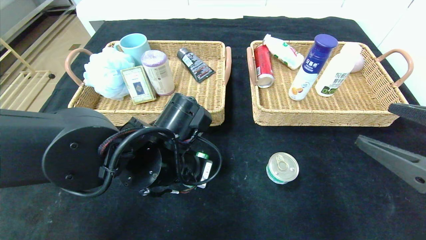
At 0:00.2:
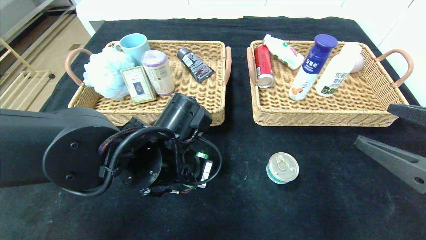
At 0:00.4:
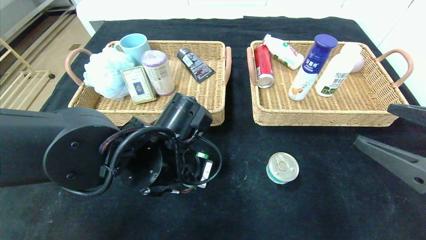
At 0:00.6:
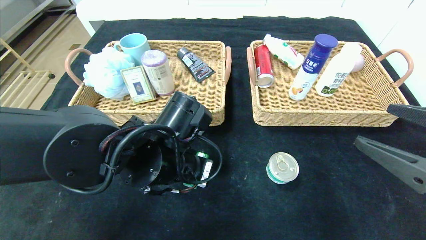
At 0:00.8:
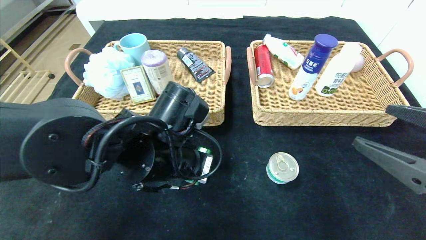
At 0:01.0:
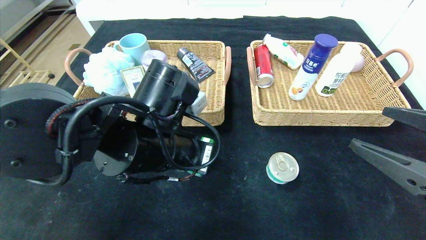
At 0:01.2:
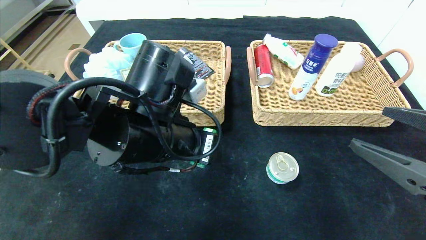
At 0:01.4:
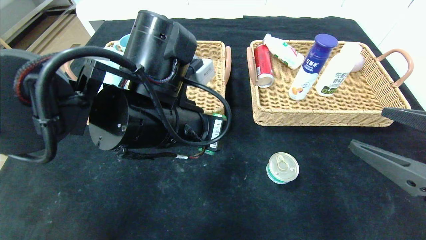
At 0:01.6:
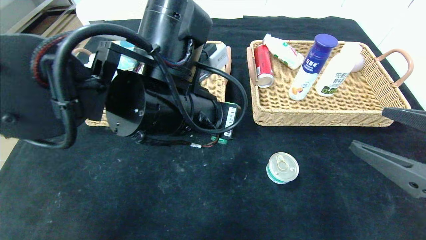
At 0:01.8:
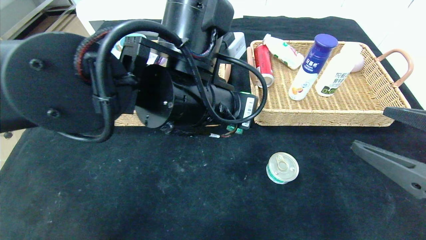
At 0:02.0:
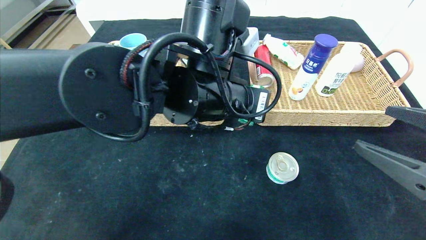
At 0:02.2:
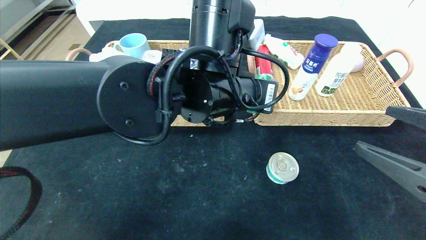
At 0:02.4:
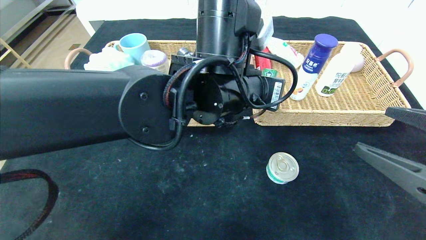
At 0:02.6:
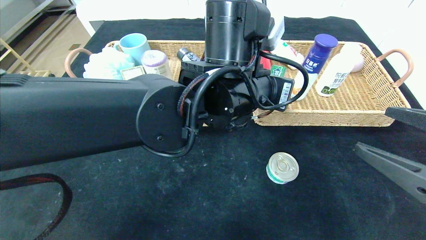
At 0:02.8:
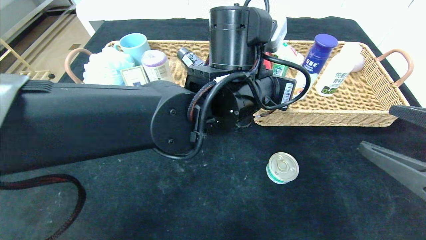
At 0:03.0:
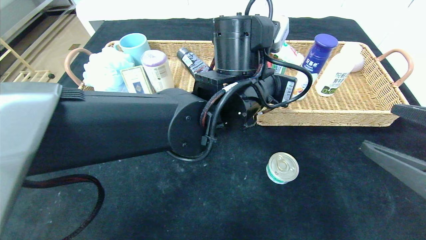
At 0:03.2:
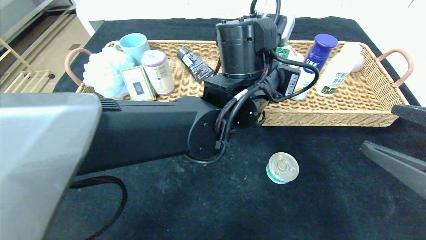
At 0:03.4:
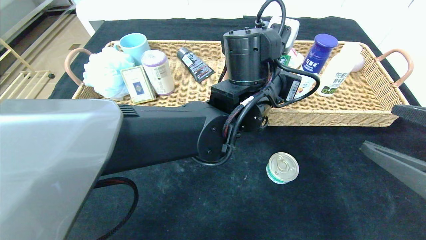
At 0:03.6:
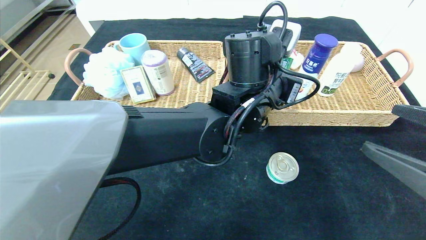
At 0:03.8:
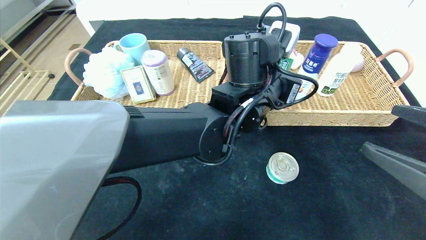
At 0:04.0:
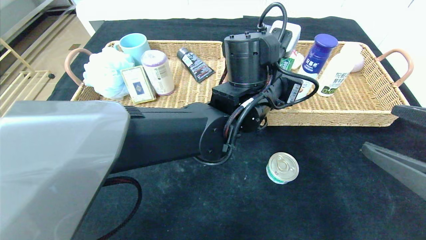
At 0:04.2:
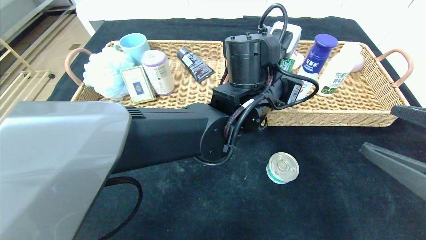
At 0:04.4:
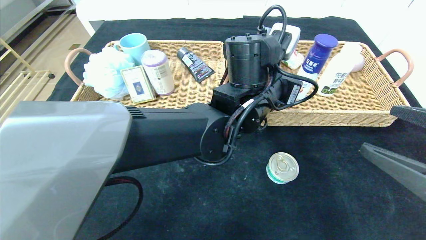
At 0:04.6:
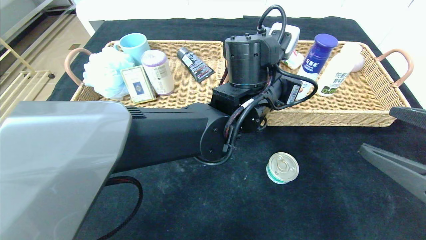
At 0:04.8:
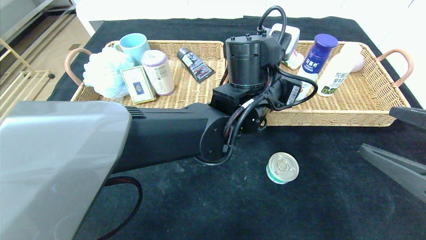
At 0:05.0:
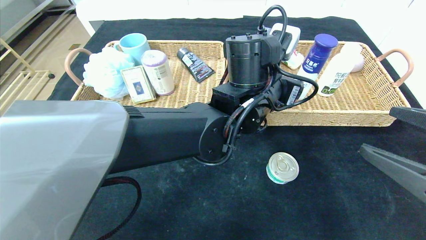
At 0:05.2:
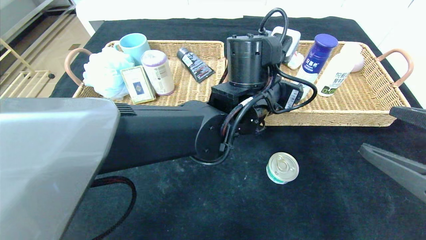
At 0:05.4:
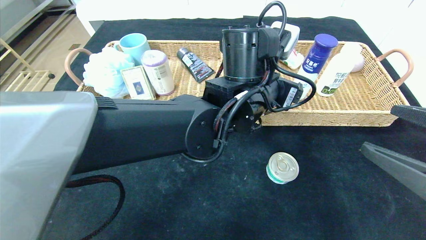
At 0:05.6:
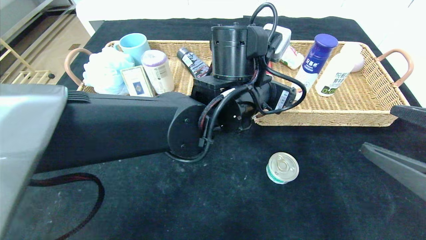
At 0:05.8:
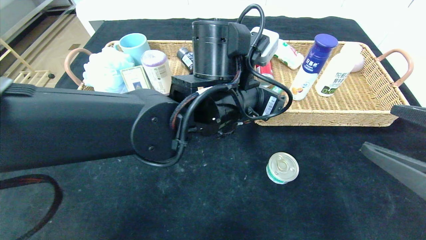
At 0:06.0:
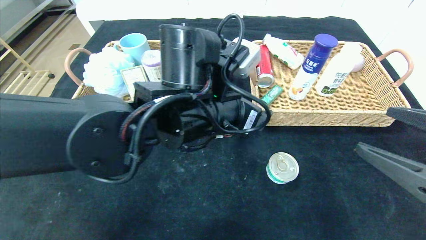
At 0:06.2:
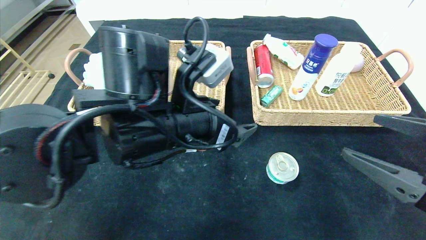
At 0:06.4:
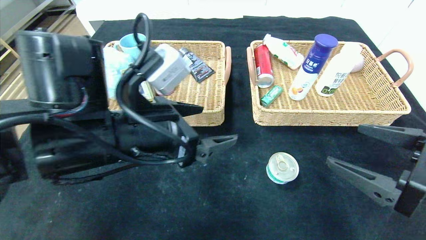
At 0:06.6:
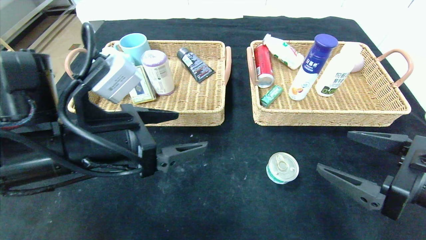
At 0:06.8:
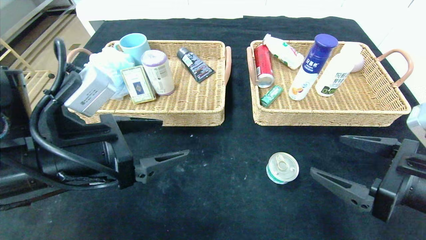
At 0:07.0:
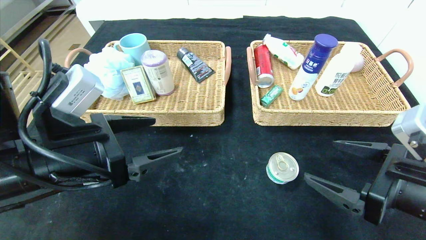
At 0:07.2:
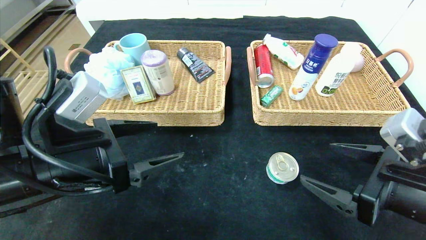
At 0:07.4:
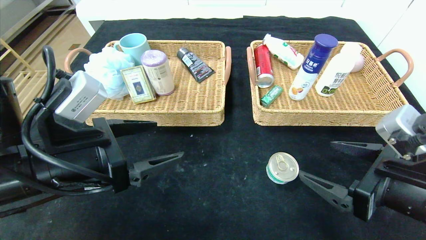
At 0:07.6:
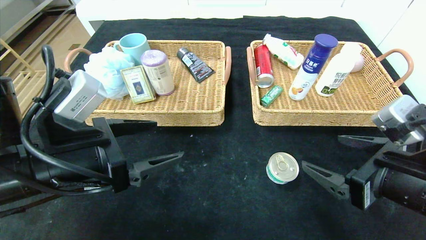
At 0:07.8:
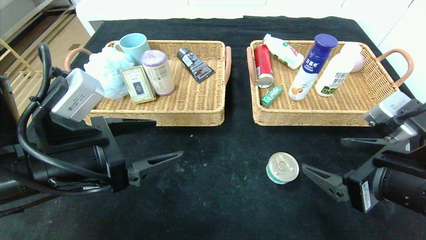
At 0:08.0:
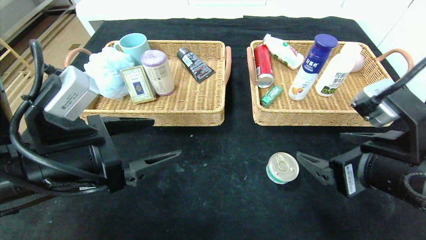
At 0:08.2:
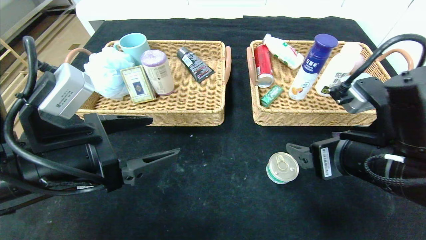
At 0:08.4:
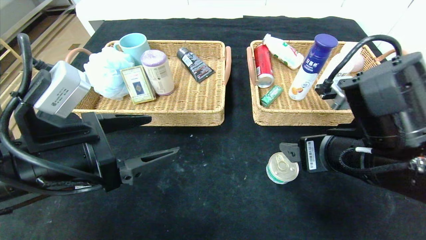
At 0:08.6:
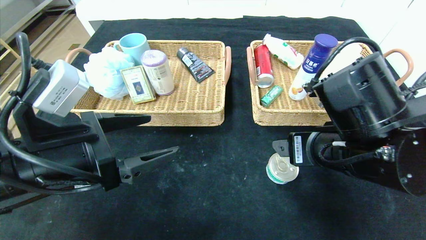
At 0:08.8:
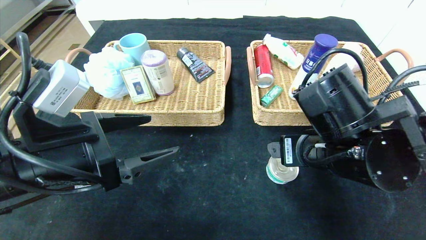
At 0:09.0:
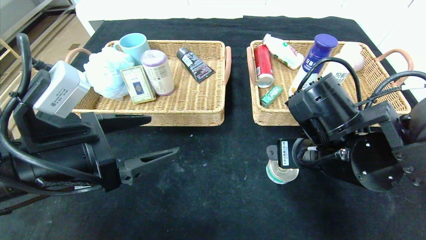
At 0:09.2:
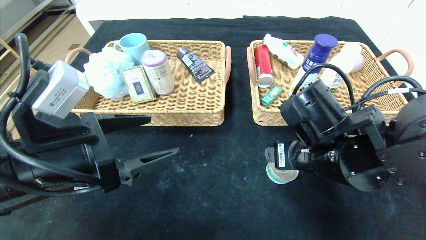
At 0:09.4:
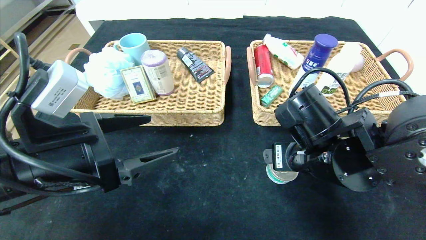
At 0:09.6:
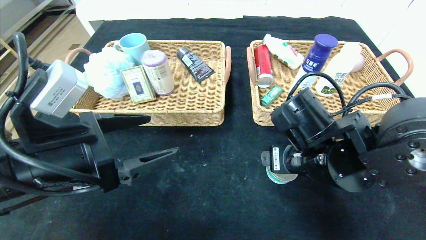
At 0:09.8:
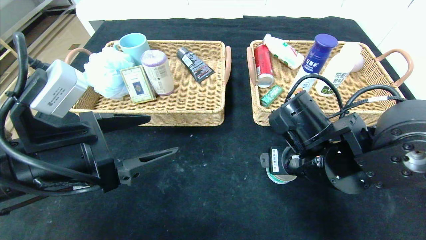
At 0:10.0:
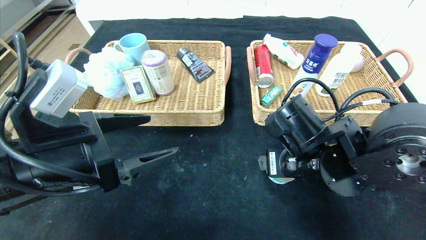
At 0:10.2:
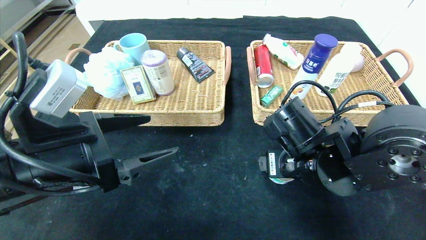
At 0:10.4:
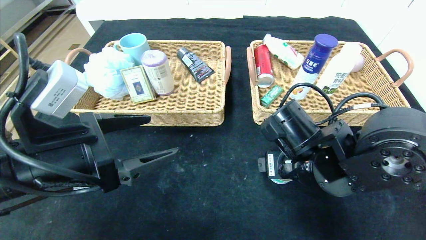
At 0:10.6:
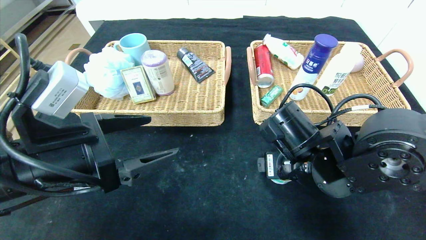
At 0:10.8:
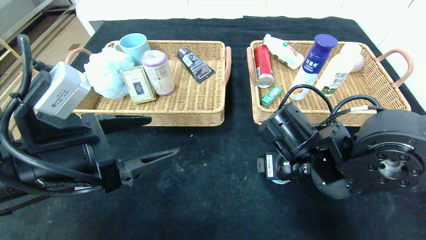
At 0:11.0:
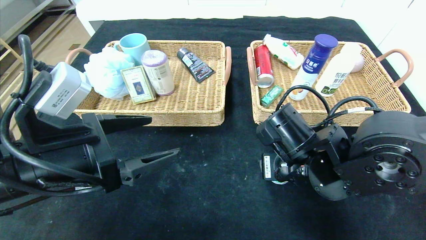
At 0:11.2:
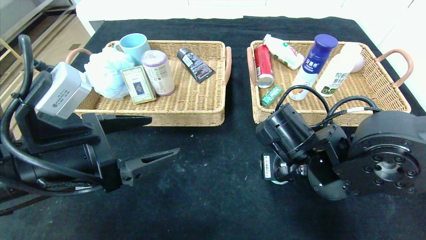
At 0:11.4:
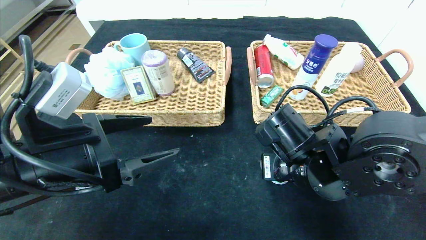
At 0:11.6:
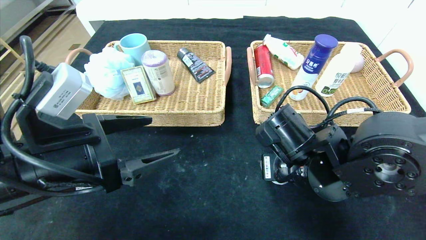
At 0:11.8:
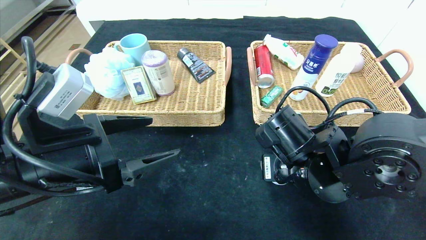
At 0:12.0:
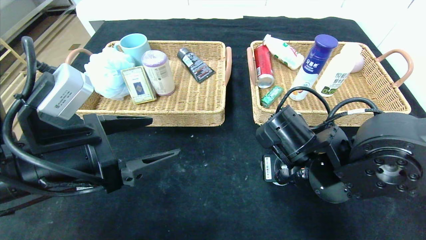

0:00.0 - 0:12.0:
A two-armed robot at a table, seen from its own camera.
0:00.0 - 0:01.6: The left gripper heads upward, covering about 10 cm.
0:01.6 - 0:03.0: The left gripper travels to the right and forward by some 10 cm.
0:03.0 - 0:04.4: The left gripper opens.
0:04.4 - 0:06.0: The left gripper heads to the left and backward, covering some 10 cm, and opens its fingers.
0:06.0 - 0:07.6: The left gripper goes about 15 cm to the left, while the right gripper shifts by some 5 cm.
0:07.6 - 0:09.0: The right gripper heads to the left and forward, covering about 10 cm.
0:09.0 - 0:10.4: The grippers move only a little.
0:10.4 - 0:12.0: The right gripper closes up.

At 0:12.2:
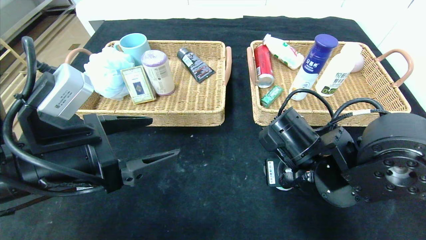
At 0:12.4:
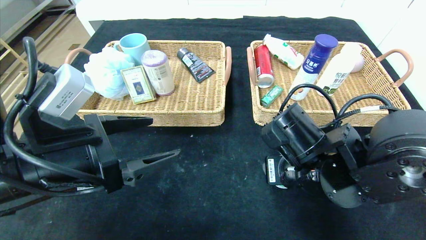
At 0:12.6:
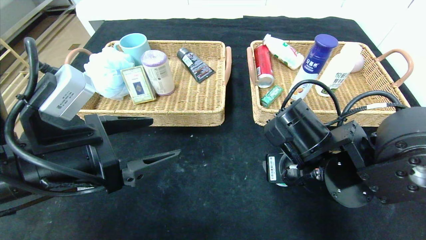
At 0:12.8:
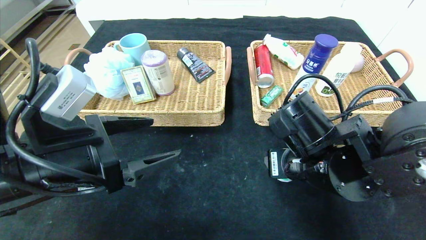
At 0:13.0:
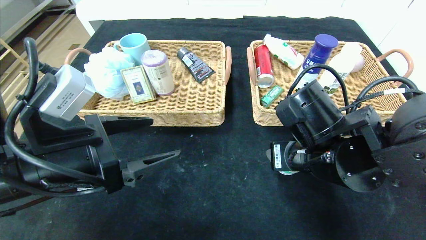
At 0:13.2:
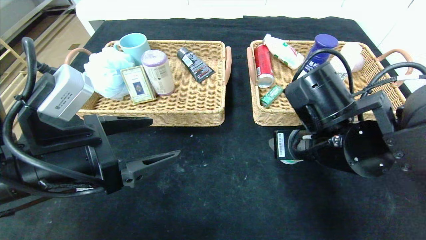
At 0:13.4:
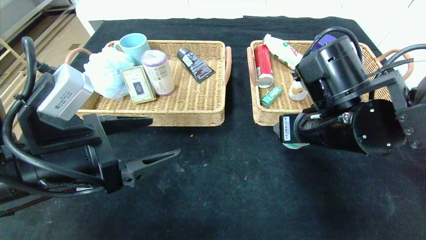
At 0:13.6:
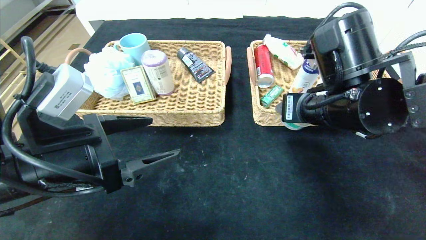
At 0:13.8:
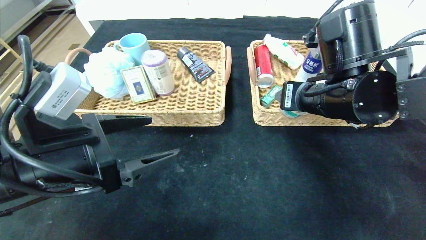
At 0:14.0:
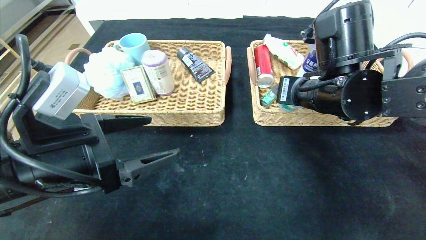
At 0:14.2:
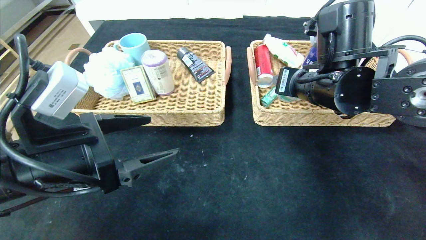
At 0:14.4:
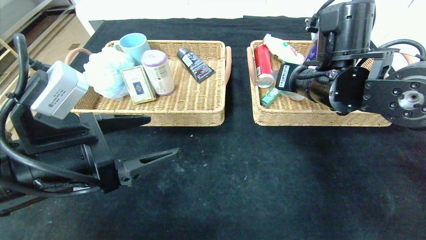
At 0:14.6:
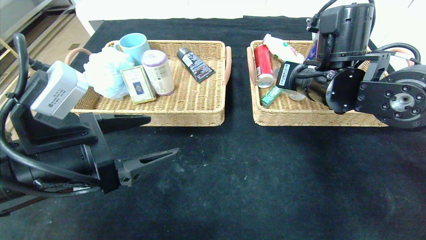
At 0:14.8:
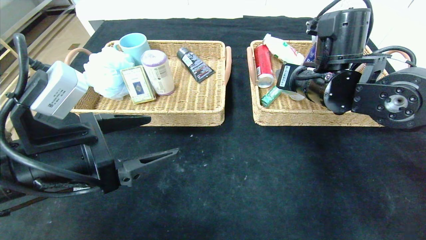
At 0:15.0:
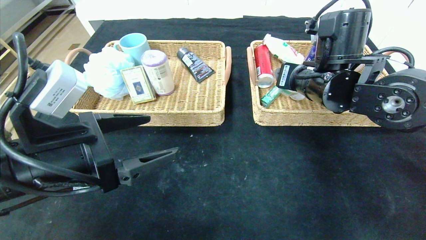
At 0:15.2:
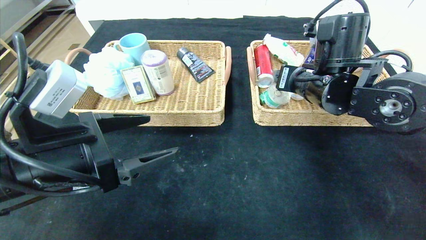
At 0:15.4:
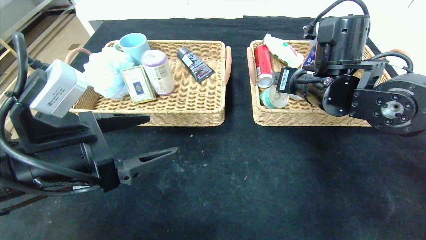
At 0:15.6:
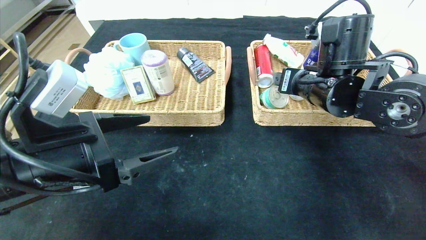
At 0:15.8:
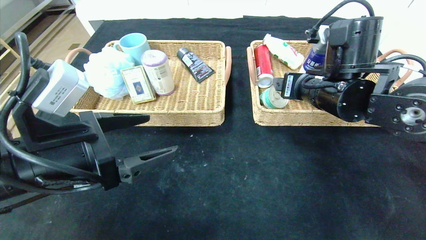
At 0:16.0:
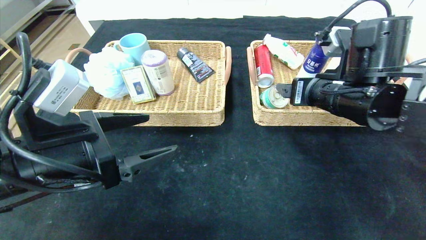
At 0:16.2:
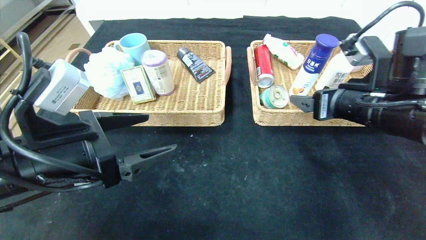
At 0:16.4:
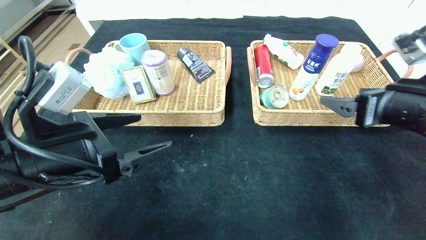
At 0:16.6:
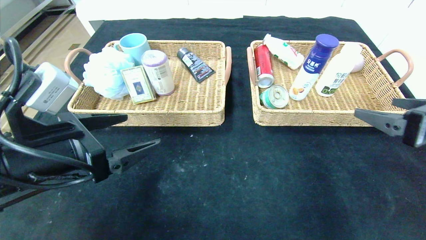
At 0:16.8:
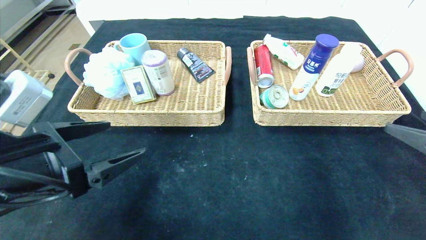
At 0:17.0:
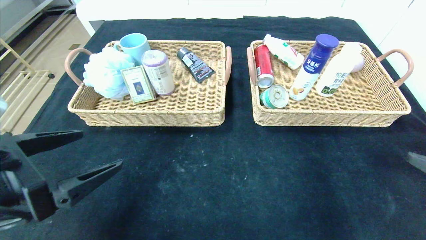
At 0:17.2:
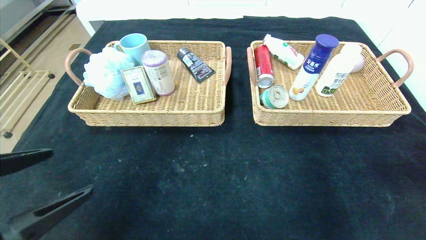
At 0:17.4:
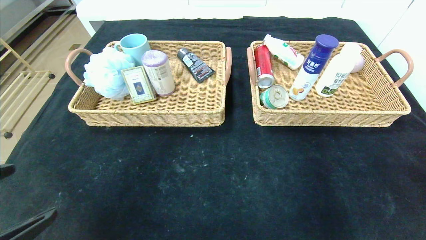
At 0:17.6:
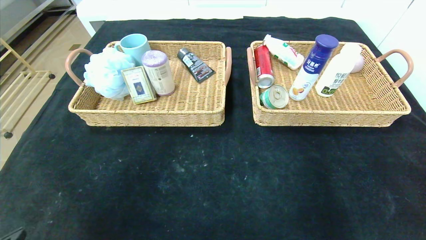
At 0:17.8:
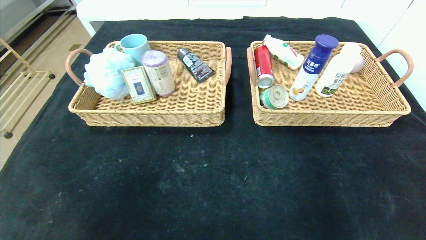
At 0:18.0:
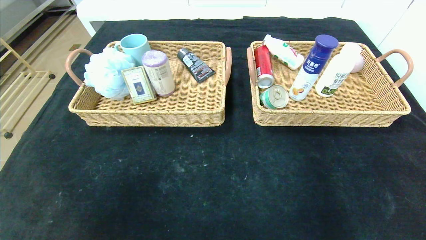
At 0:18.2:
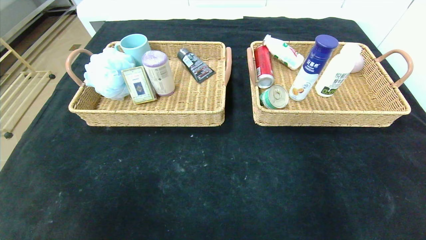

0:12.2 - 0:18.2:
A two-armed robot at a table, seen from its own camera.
Step, 0:12.2 - 0:15.2: Grasp the can and put it in the right basket.
0:12.2 - 0:13.8: The right gripper goes some 10 cm upward.
0:13.8 - 0:15.2: The right gripper shifts some 5 cm forward.
0:15.2 - 0:16.6: The right gripper heads to the right and backward, covering some 20 cm.
0:16.6 - 0:18.2: The right gripper travels backward and downward by approximately 25 cm, while the left gripper moves backward, about 20 cm.
